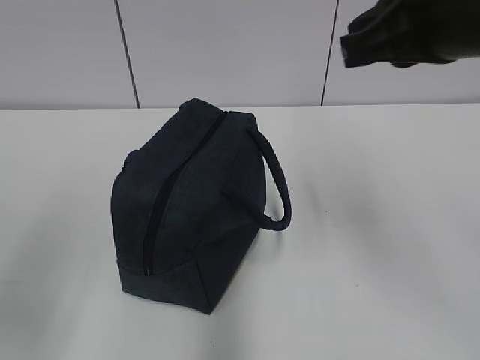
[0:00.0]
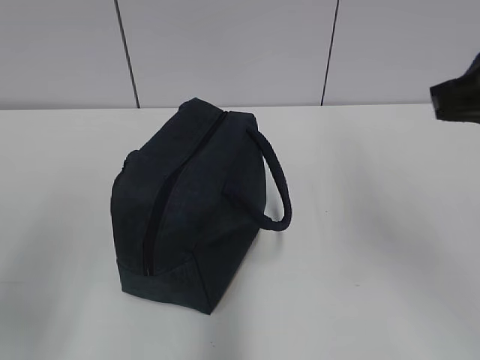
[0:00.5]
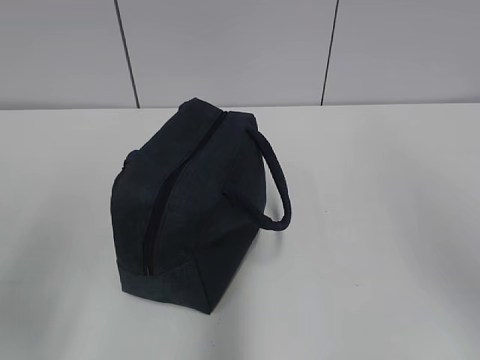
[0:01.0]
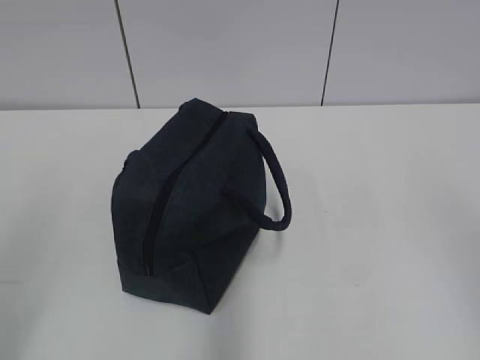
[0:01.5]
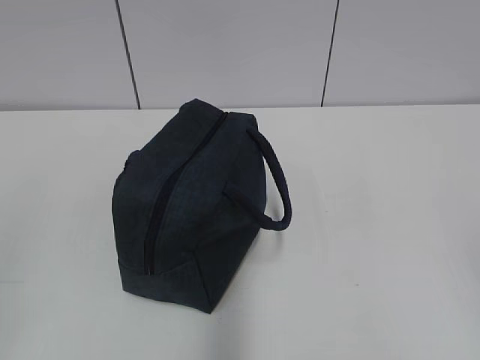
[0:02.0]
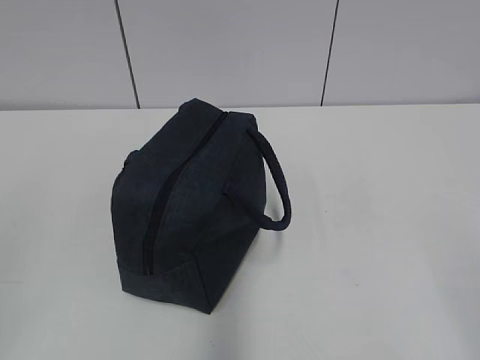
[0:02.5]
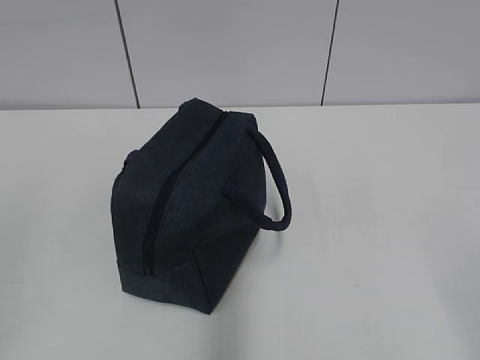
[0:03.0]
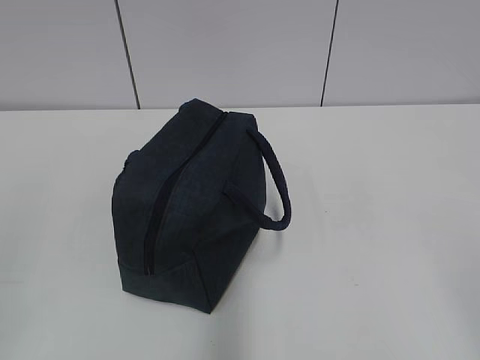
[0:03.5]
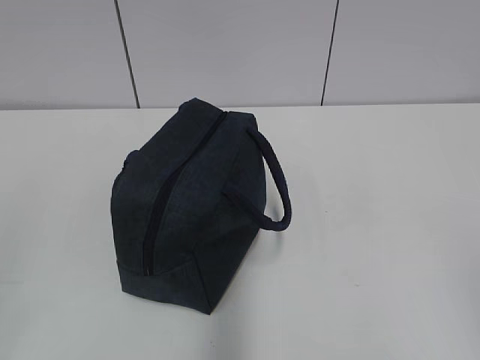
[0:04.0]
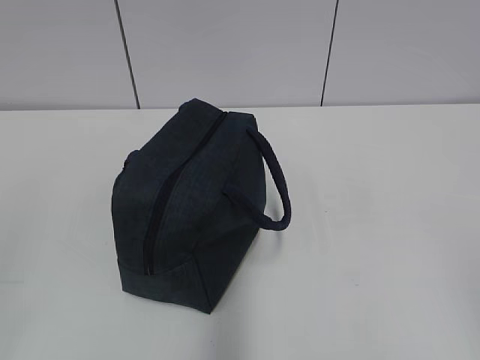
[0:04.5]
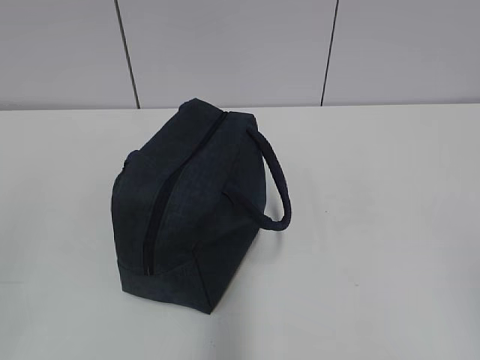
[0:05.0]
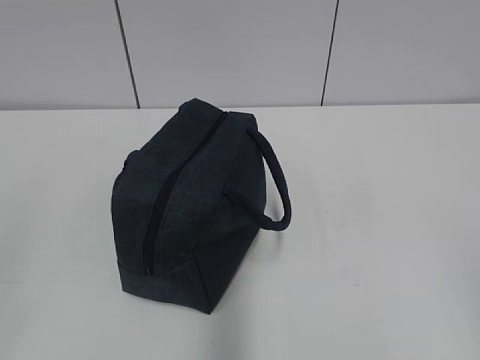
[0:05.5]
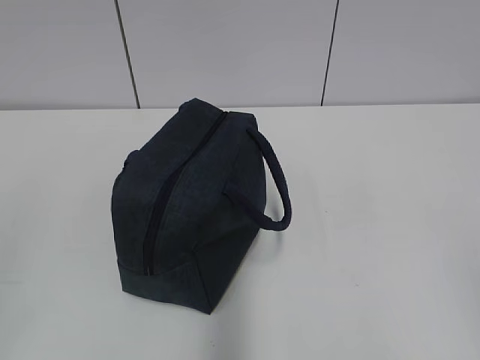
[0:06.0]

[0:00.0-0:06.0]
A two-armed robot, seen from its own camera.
0:00.0 to 0:02.0: The right gripper travels backward and to the right by roughly 30 cm. The left gripper moves backward, some 10 cm, and closes.
